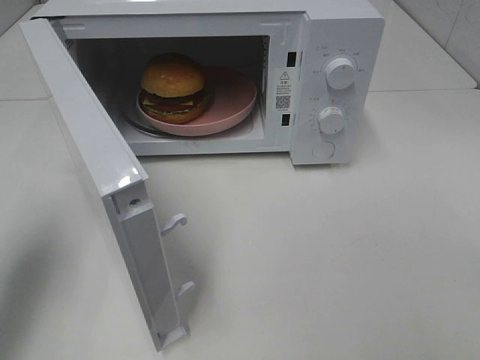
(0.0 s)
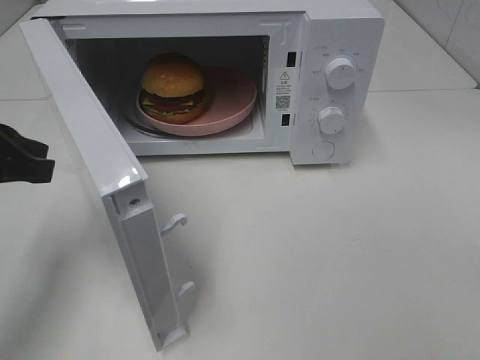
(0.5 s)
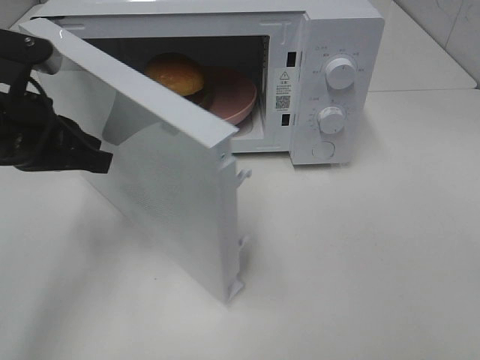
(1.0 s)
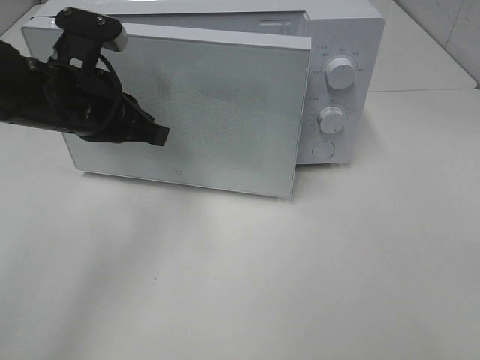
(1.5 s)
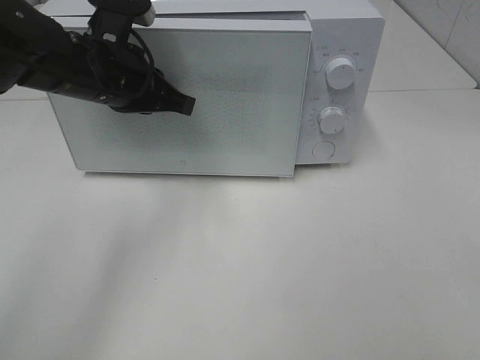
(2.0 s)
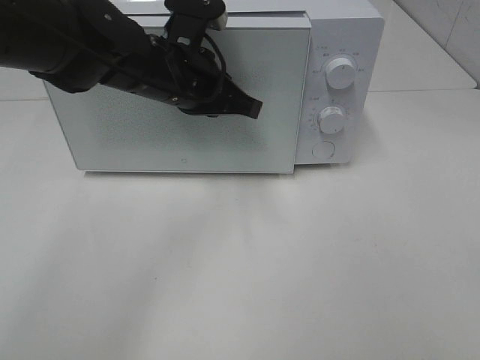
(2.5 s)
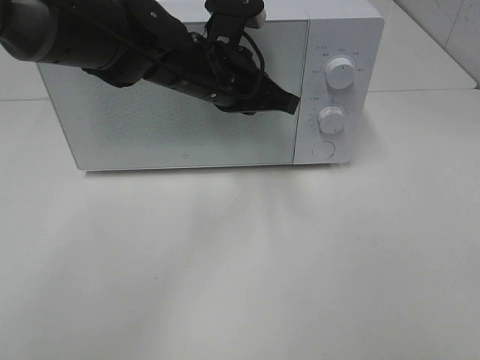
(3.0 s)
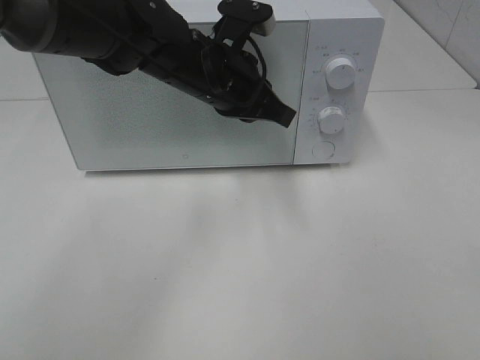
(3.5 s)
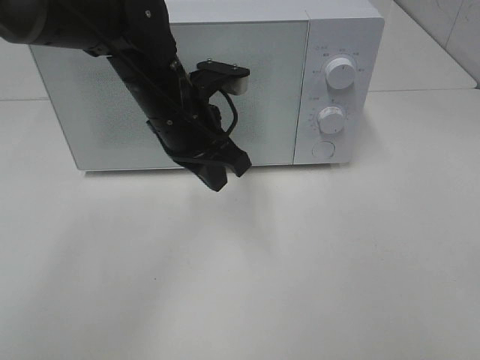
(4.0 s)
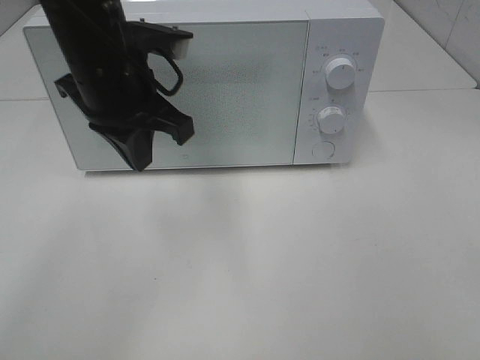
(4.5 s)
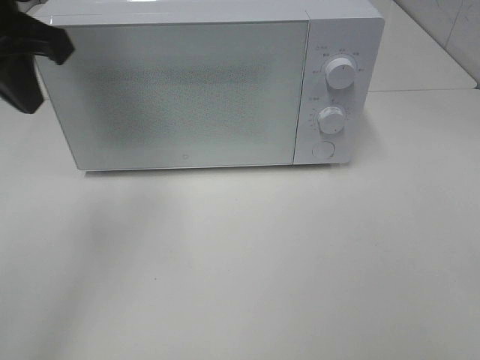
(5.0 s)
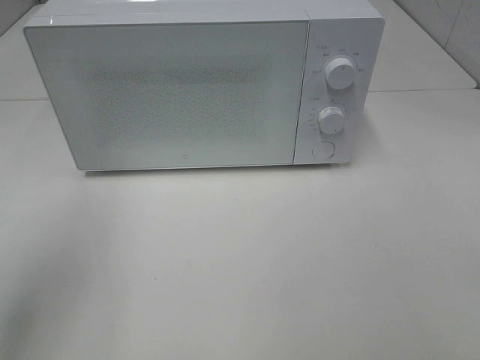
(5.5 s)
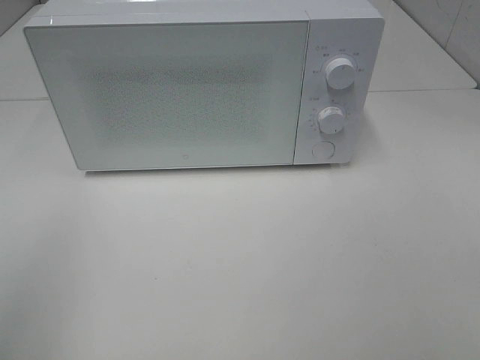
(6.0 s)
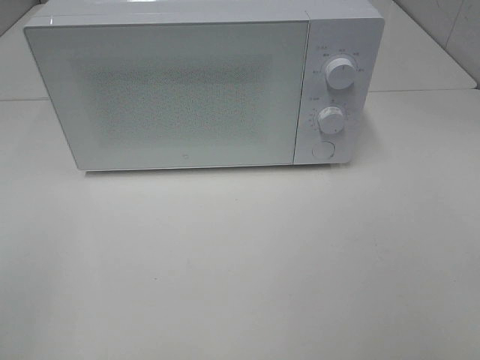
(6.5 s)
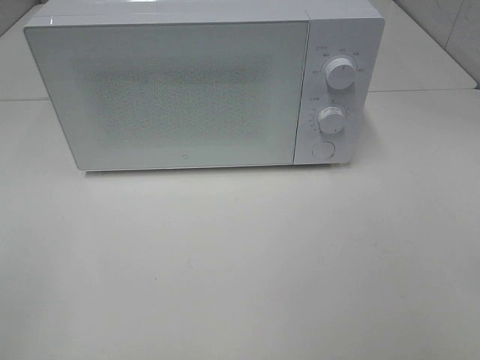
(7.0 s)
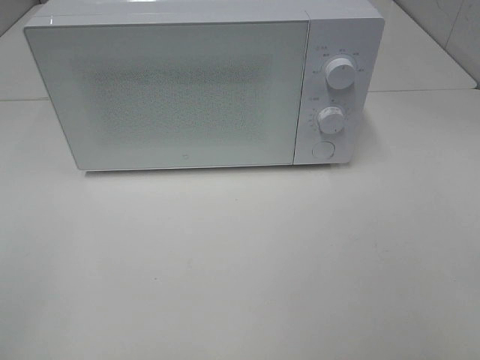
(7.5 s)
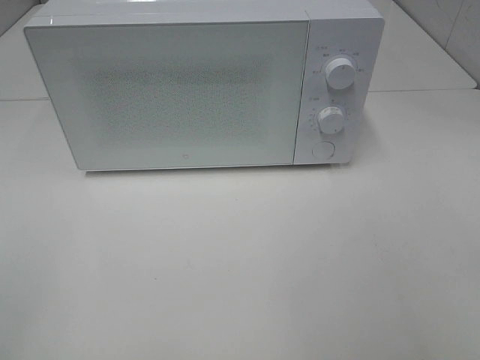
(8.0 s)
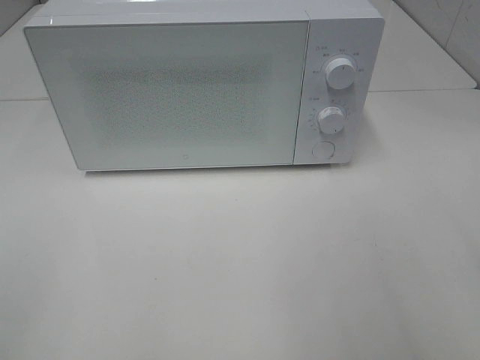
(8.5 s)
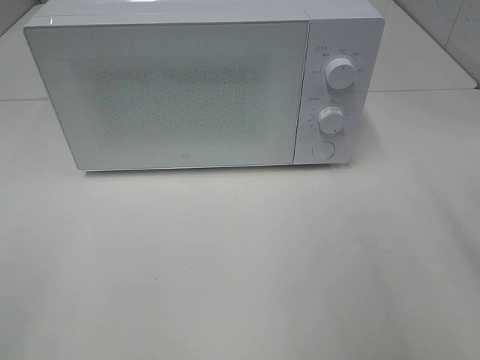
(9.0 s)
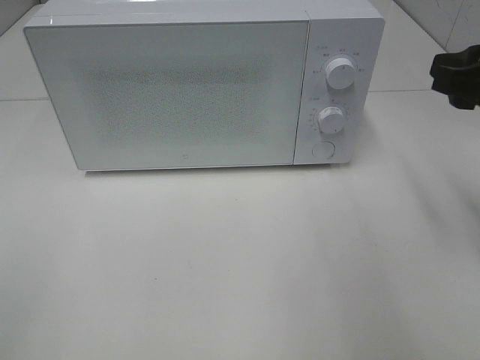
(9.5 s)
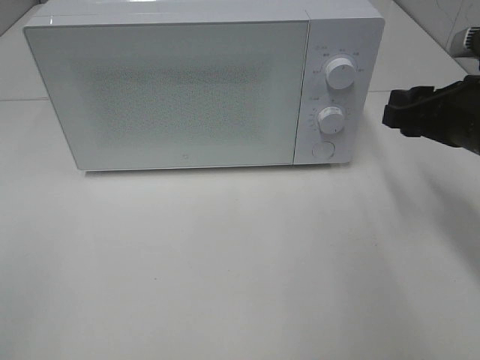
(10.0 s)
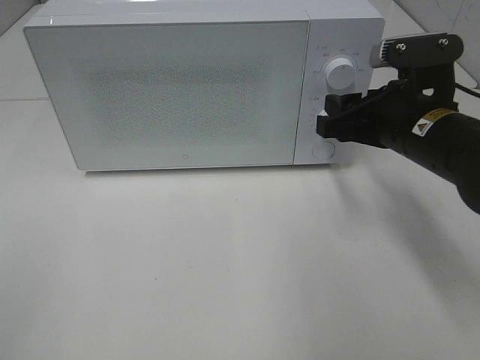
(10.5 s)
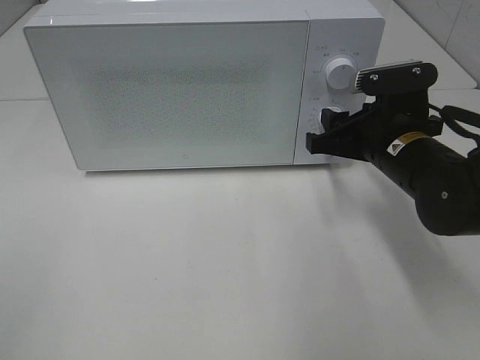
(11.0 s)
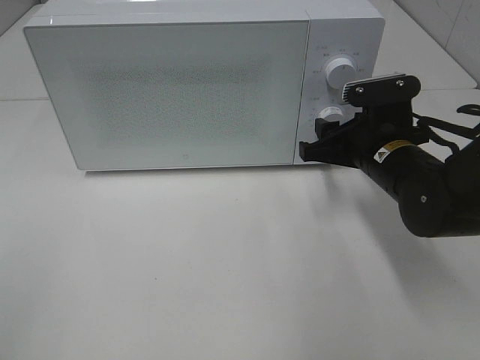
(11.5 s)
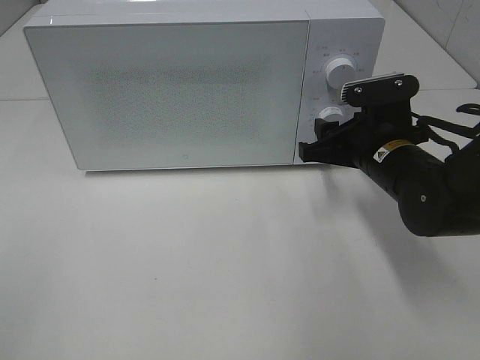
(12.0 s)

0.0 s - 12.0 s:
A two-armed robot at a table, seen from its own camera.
Task of the whole recording: Heat the burger.
Step, 0.0 s - 3.5 s: Left hand: close the microwave door.
0.0 s - 2.0 s: The left gripper heads to the right and forward, covering approximately 20 cm.
2.0 s - 4.0 s: The left gripper is displaced to the right by roughly 5 cm.
4.0 s - 6.0 s: The left gripper goes approximately 35 cm backward, to the left and upward.
8.0 s - 10.0 s: The right gripper moves forward, approximately 25 cm.
10.0 s - 12.0 s: The right gripper moves to the left and downward, approximately 10 cm.

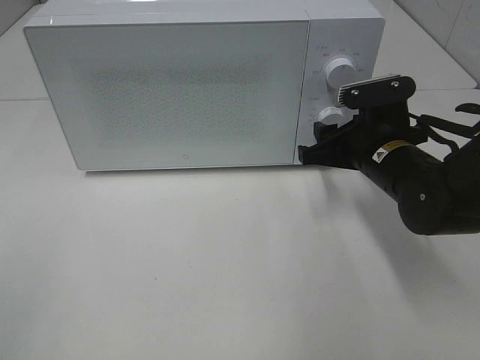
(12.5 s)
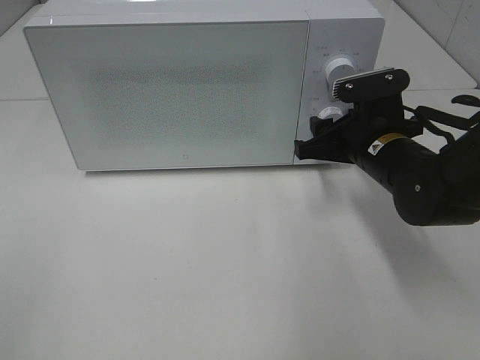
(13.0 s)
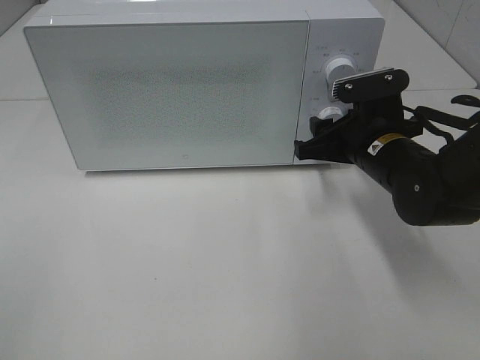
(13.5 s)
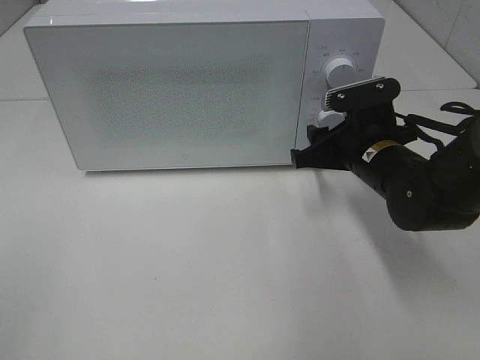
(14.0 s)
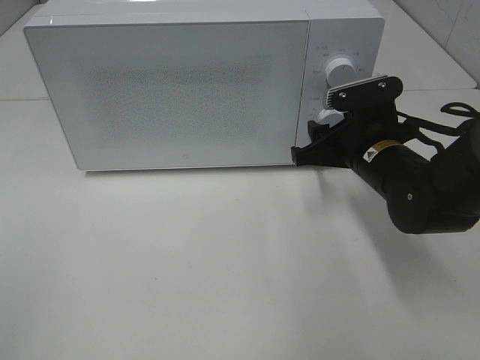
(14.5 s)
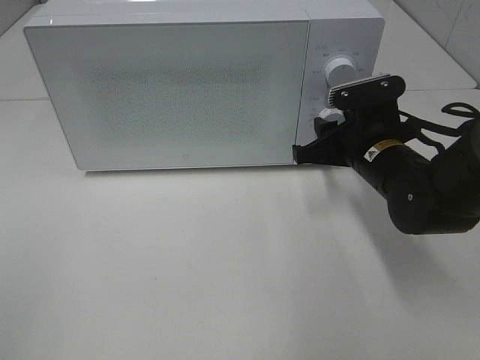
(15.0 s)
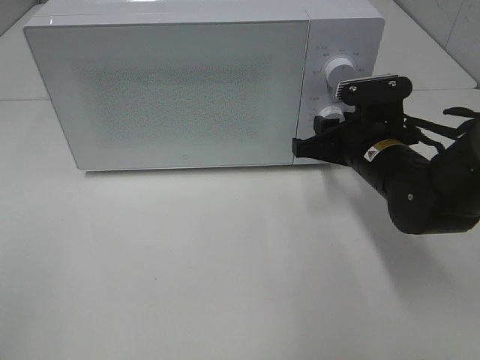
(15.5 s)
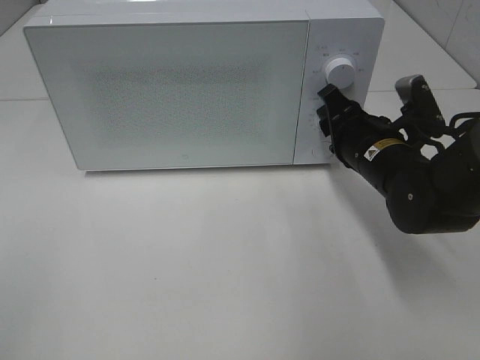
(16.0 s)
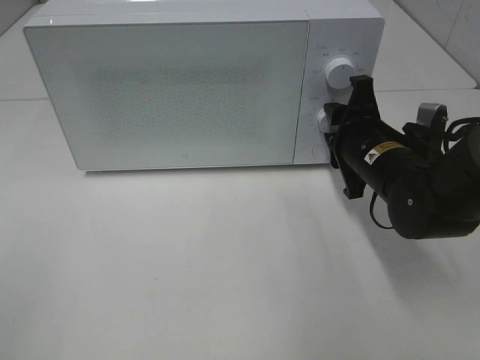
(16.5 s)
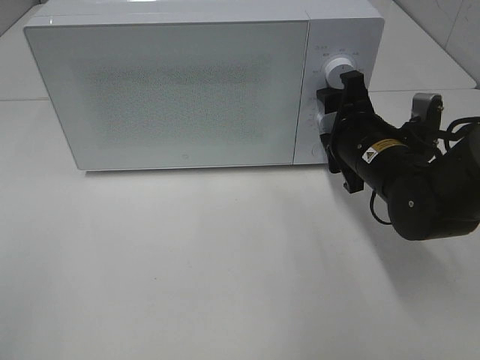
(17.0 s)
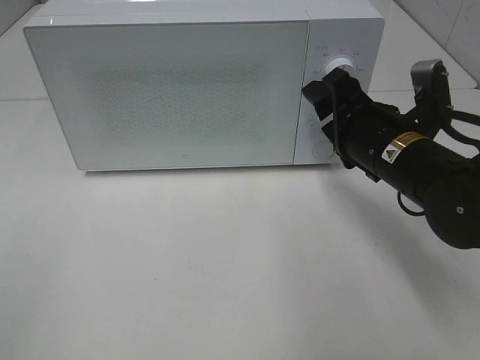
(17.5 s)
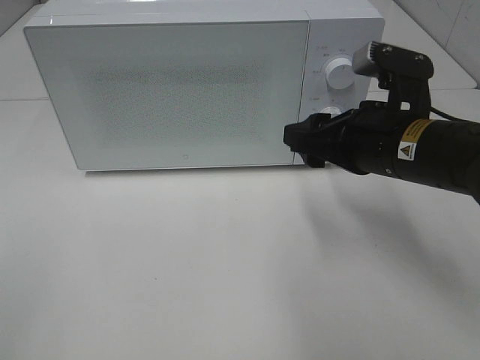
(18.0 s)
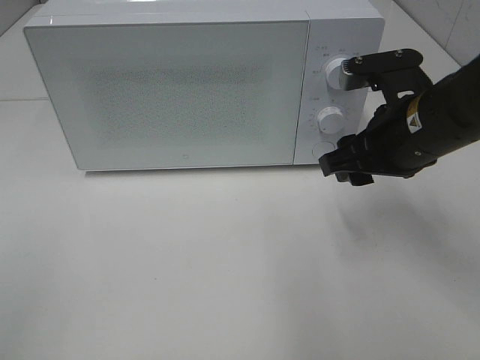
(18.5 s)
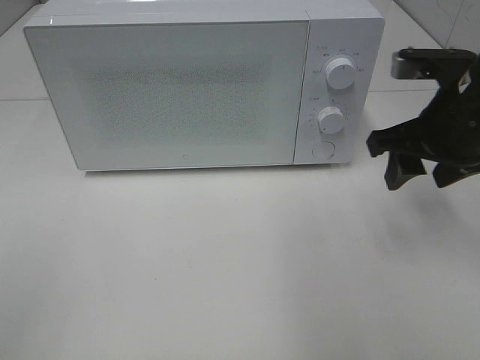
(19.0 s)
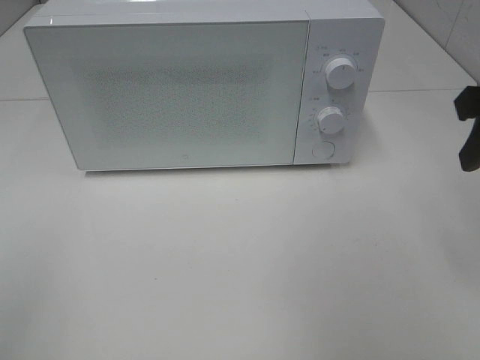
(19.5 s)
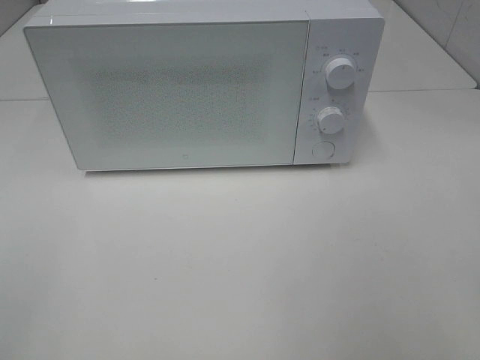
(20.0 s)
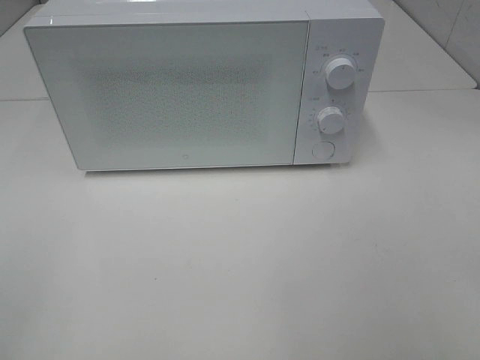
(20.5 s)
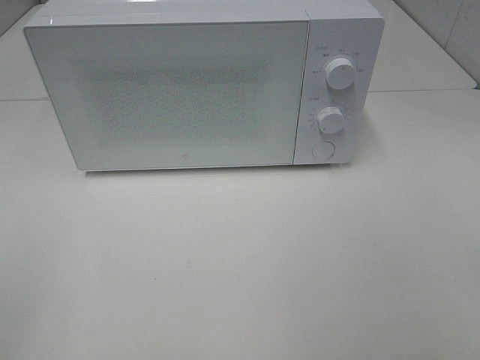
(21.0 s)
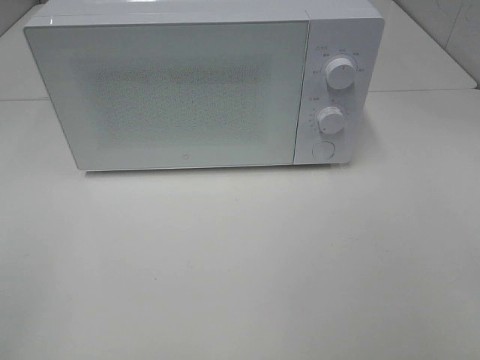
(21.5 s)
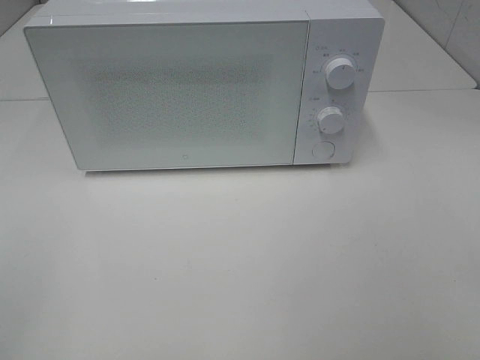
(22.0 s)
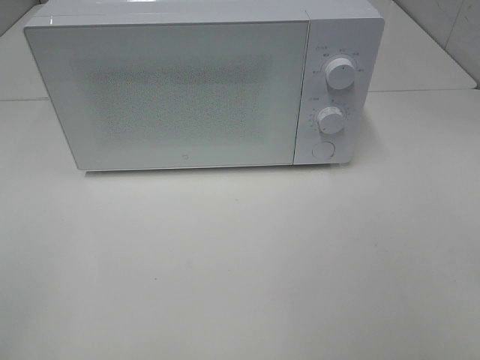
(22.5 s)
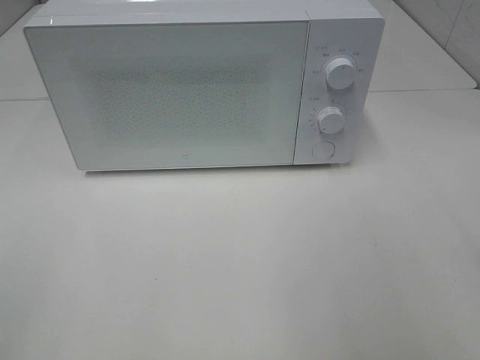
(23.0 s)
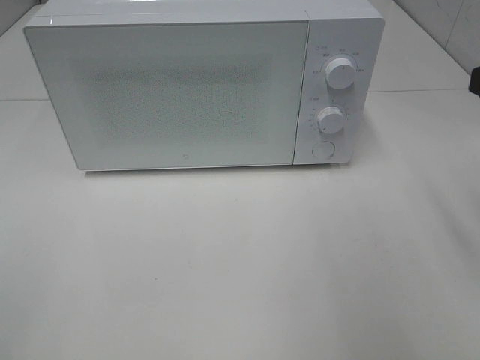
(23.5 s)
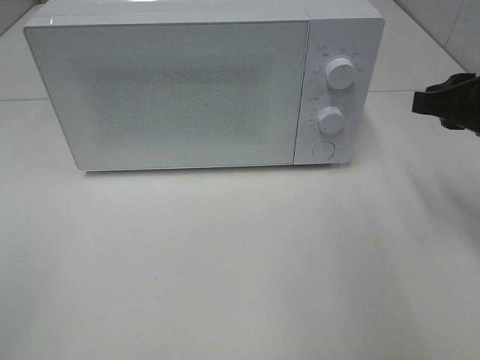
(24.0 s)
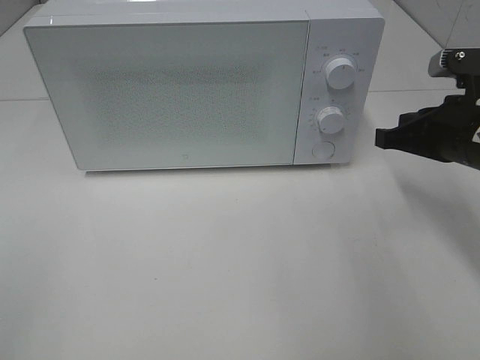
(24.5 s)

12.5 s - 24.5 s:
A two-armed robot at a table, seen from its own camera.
Task of the whole recording: Heat the burger.
Step, 12.5 s - 16.5 s: Right hand: twist timer button.
12.5 s - 14.5 s: The two grippers keep their place.
16.5 s - 18.5 s: The right gripper shifts about 10 cm upward.
18.5 s - 20.5 s: The right gripper is displaced backward and to the right by some 25 cm.
22.5 s - 24.5 s: The right gripper heads forward and downward, covering about 30 cm, and closes.

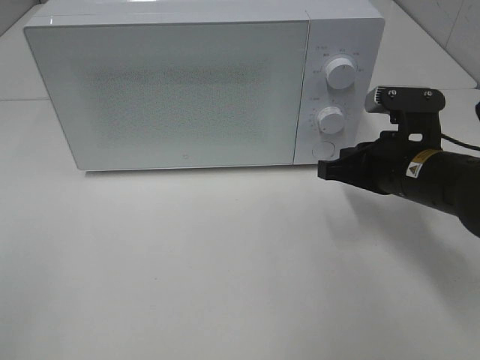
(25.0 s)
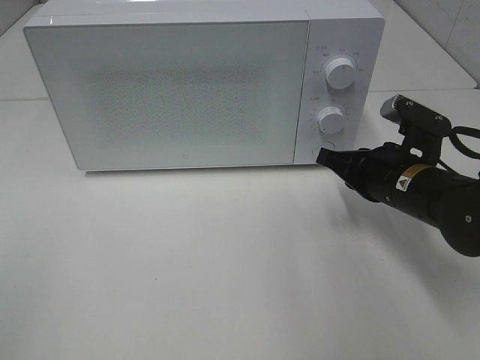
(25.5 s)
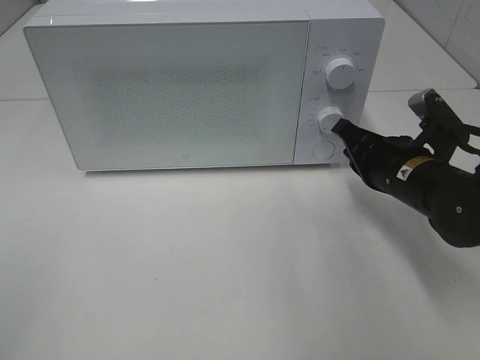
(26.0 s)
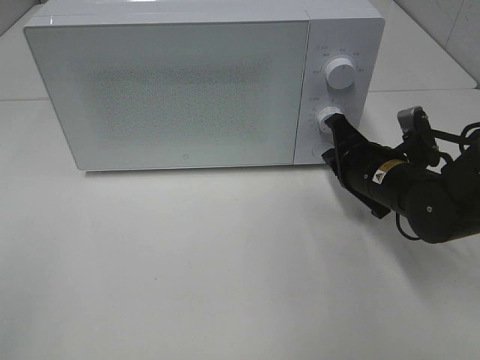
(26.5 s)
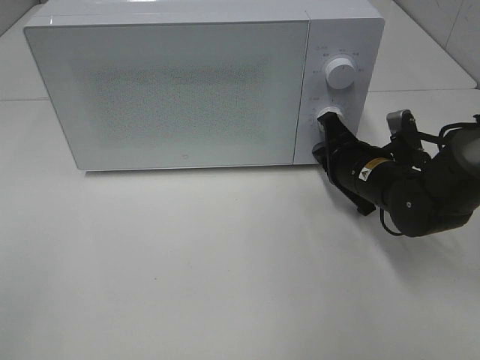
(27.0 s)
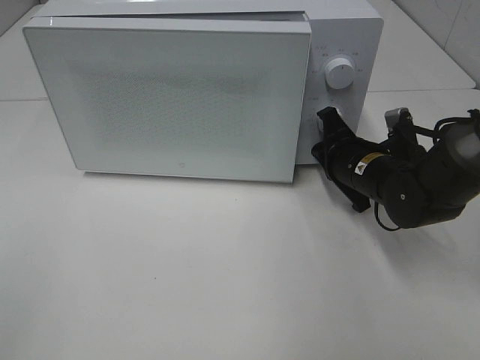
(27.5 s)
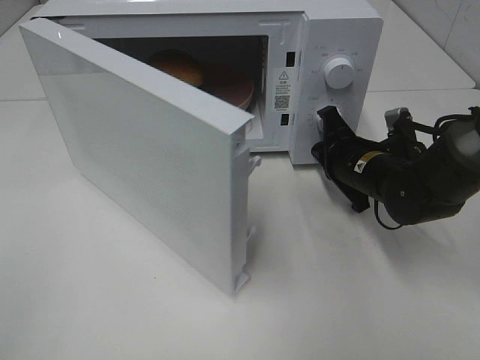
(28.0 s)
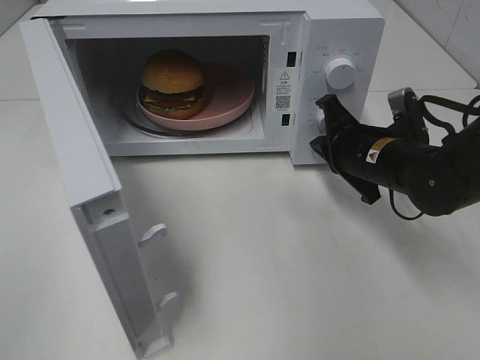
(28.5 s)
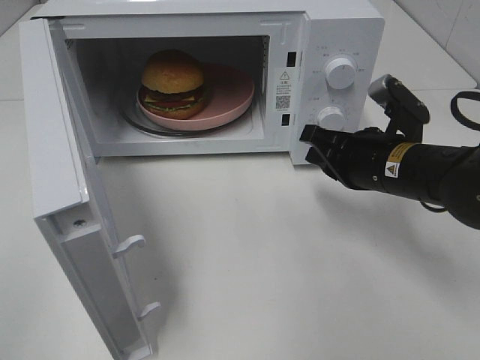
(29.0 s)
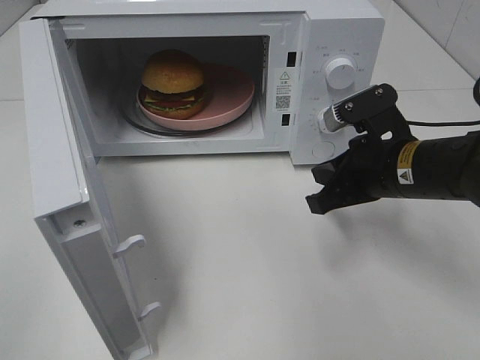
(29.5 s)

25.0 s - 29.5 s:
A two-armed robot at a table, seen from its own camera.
Task of the whole recording: Heat the burger.
Step, 25.0 s - 28.5 s: Right hand: press the switch.
25.0 s - 27.0 s: The right gripper moves downward and forward, about 10 cm.
27.0 s - 29.5 s: The right gripper moves upward and backward, some 10 cm.
